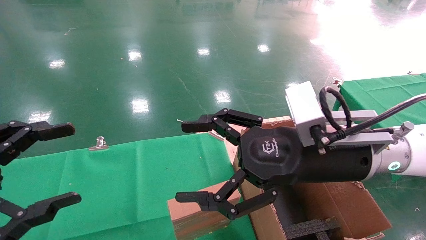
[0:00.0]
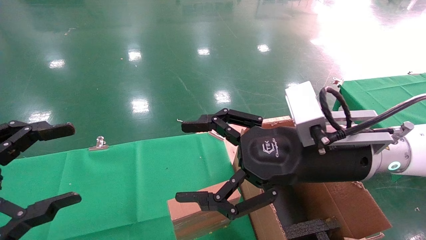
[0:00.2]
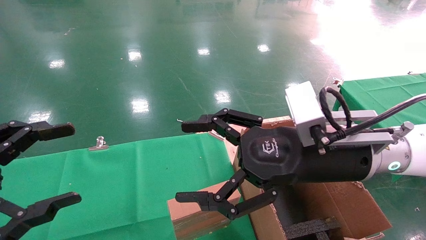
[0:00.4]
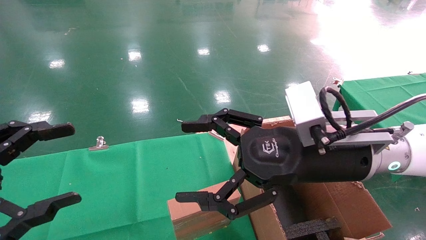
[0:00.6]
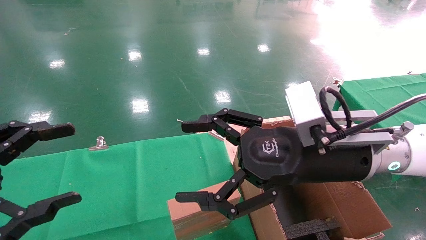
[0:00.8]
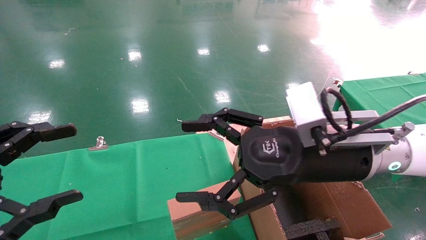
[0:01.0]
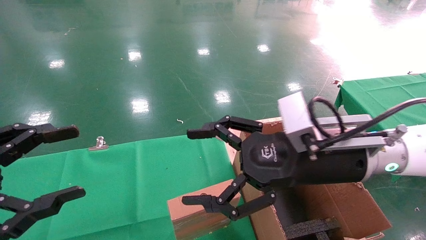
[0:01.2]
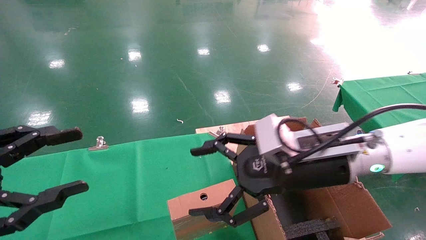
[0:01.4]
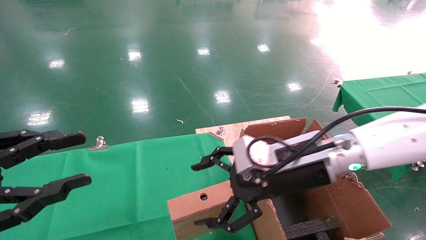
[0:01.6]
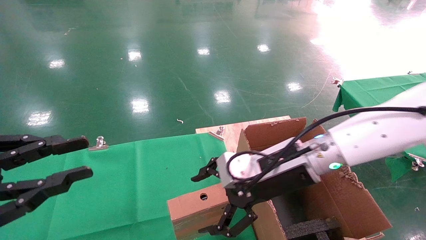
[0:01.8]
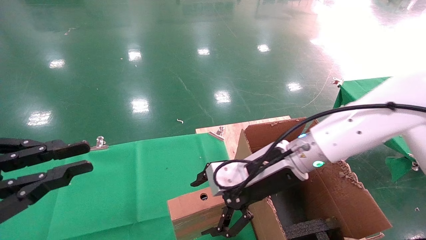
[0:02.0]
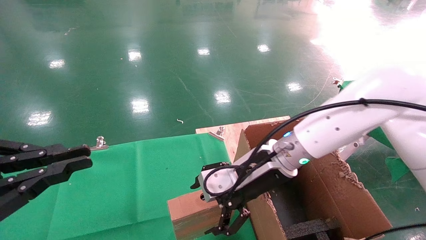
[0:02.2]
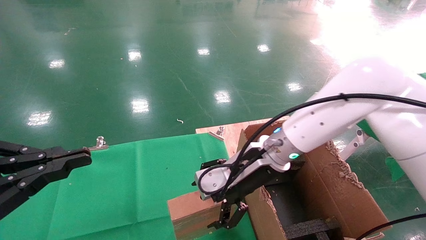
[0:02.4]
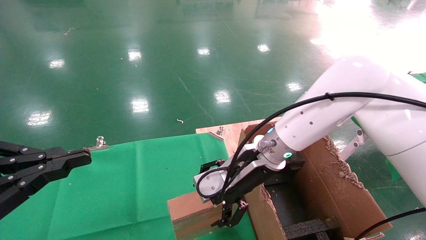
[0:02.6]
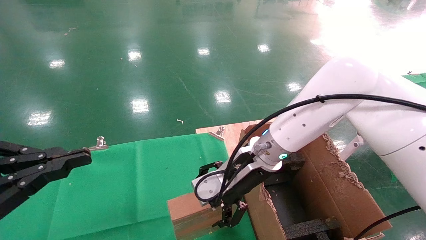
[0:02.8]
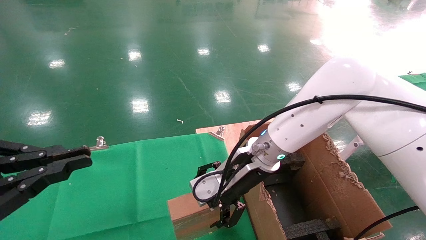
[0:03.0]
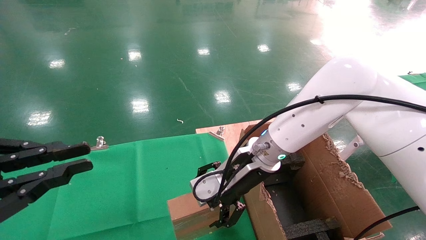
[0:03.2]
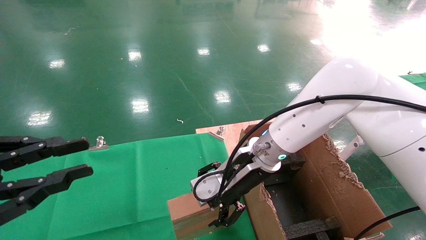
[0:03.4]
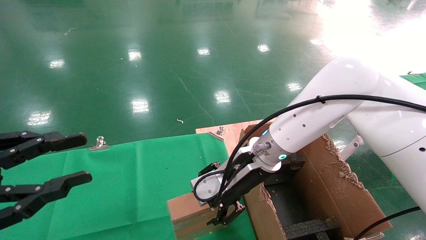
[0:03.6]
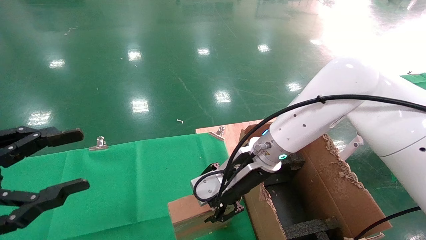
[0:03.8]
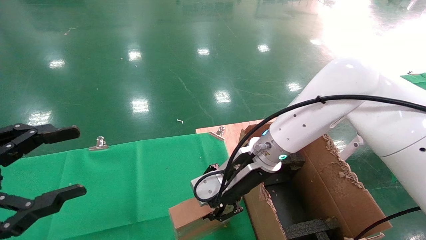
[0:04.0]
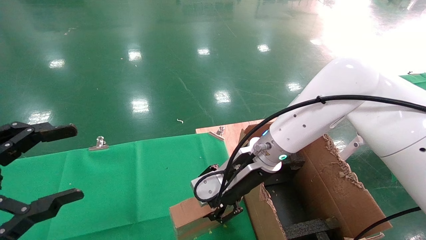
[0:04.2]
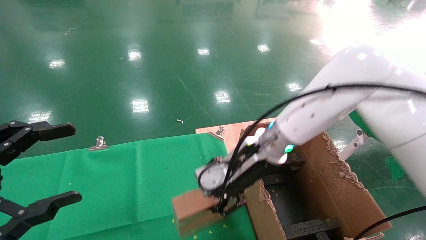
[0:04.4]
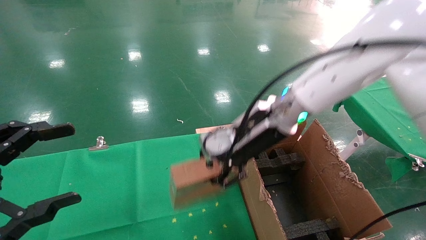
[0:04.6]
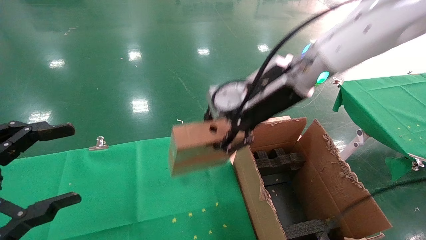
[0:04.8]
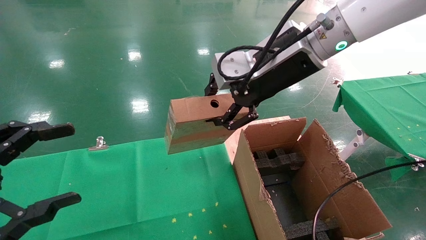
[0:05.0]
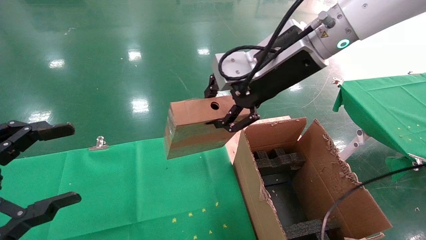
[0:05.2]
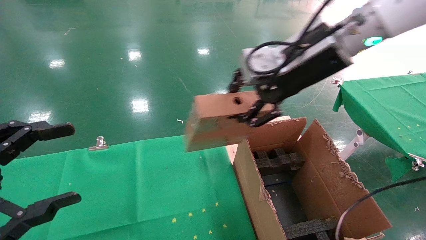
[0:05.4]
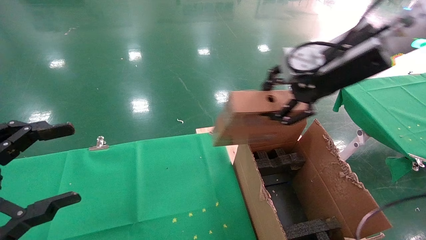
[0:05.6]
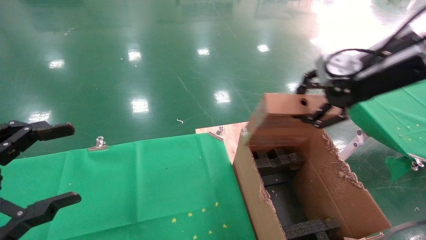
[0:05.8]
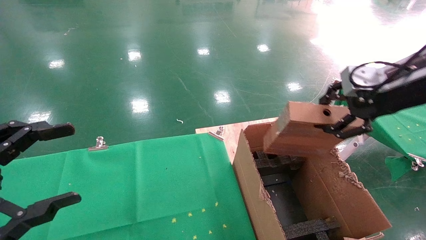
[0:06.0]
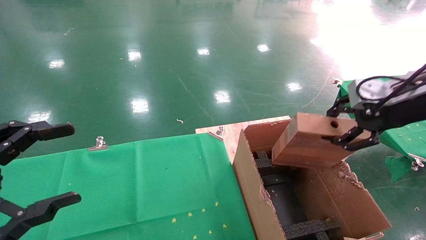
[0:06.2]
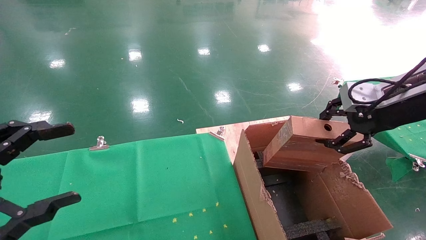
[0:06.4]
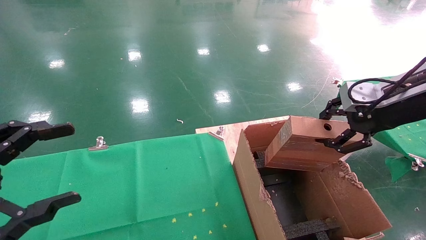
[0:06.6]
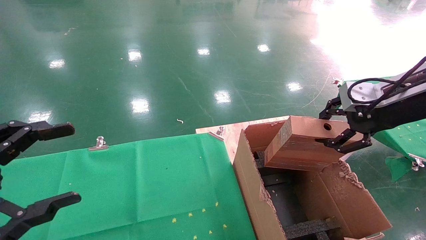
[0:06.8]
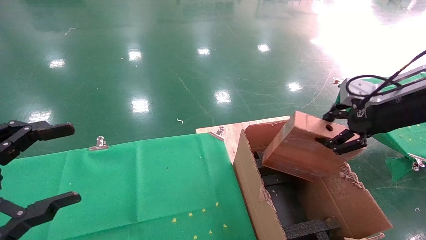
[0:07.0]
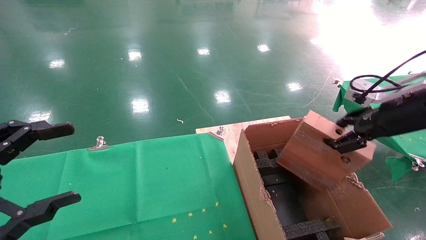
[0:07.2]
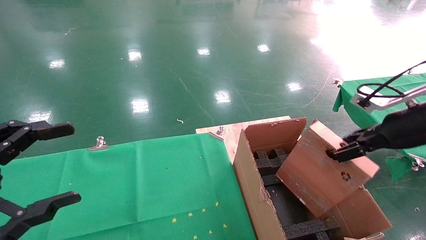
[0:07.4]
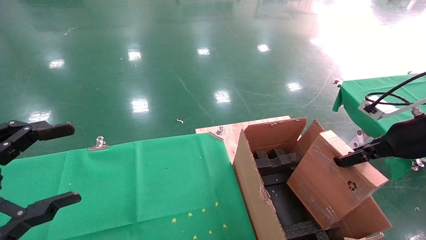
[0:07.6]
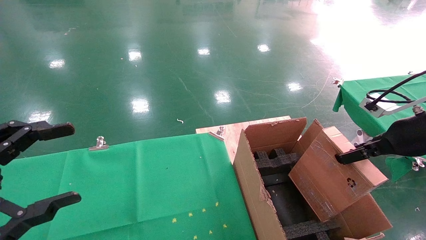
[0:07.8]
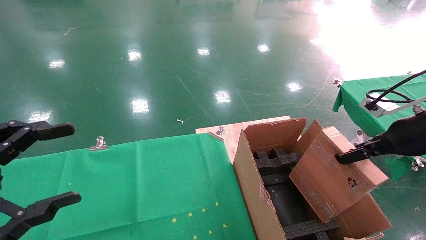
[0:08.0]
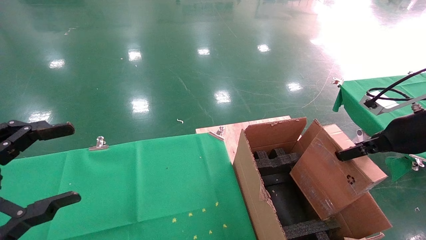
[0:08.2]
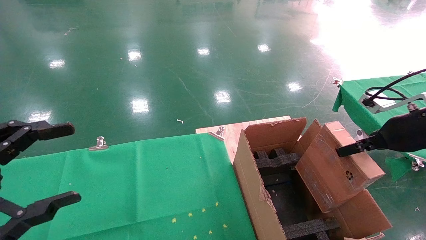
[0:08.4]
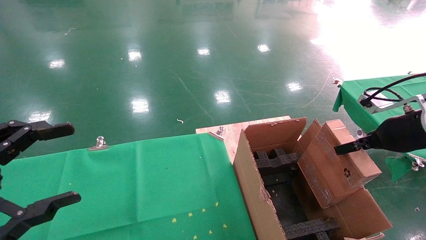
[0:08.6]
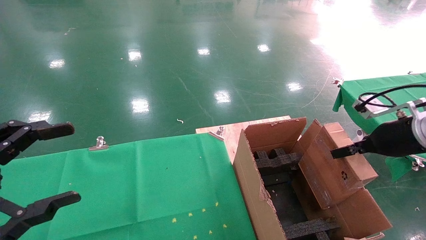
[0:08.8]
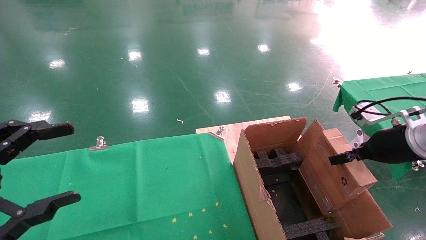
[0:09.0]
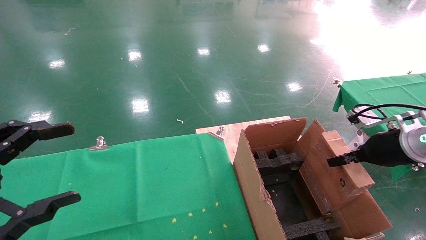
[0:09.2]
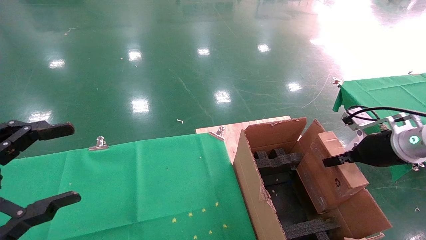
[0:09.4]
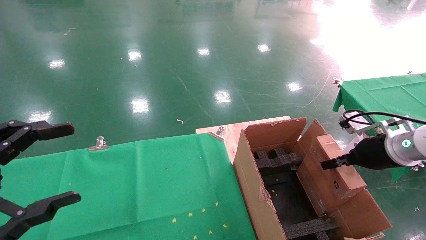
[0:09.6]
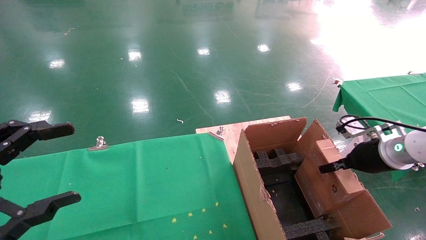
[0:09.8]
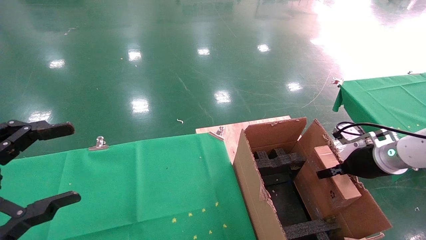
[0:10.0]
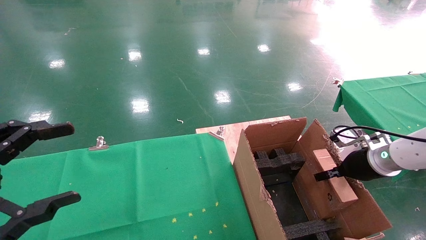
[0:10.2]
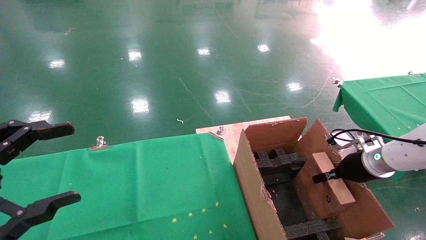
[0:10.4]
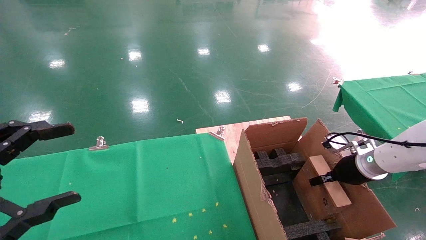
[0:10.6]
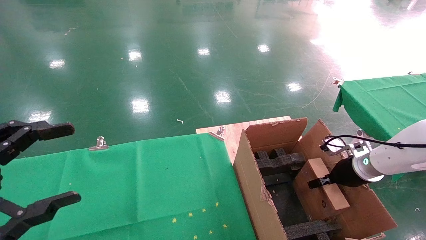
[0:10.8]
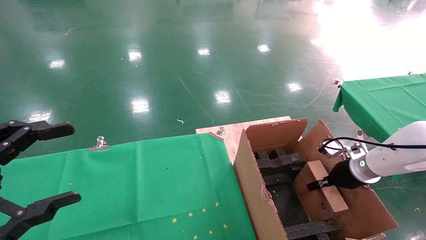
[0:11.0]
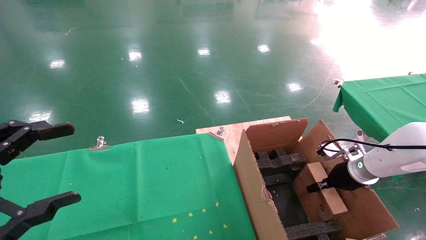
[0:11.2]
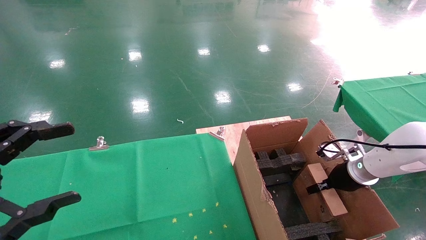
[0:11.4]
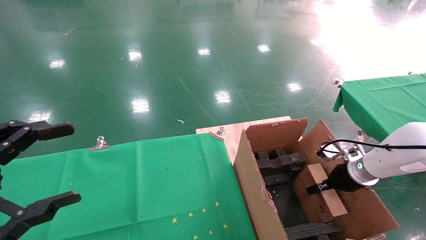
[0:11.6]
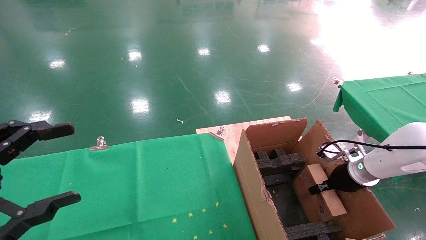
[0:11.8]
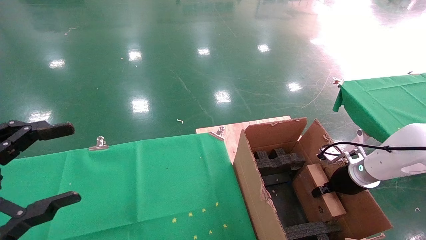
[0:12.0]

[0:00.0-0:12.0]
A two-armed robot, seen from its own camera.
Task of the whole recording: using a robotic arm to pick up a cardboard box and palace it the carton.
Step, 0:01.4 to 0:04.2: Pick up the mouse and the power cord paper box.
0:00.0 to 0:01.6: The left gripper closes up. The right gripper shifts by approximately 5 cm.
0:01.6 to 0:03.0: The left gripper closes. The right gripper goes roughly 10 cm forward and to the left.
0:03.0 to 0:04.4: The left gripper opens its fingers, while the right gripper closes up.
0:04.4 to 0:06.0: The right gripper heads to the right and upward, covering about 25 cm.
0:06.0 to 0:07.6: The right gripper is displaced downward and to the right by roughly 10 cm.
0:07.6 to 0:09.0: The right gripper shifts by some 5 cm.
0:09.0 to 0:10.4: The right gripper heads downward and forward, covering about 10 cm.
0:10.4 to 0:12.0: The grippers make only small movements.

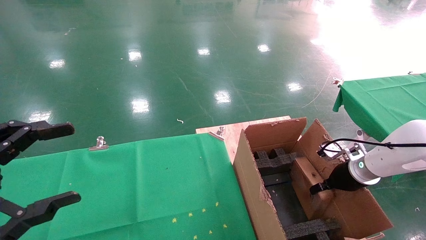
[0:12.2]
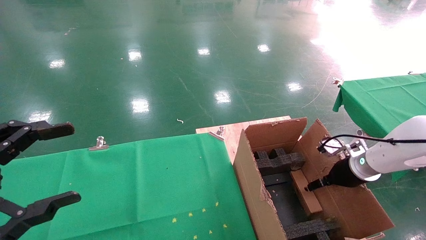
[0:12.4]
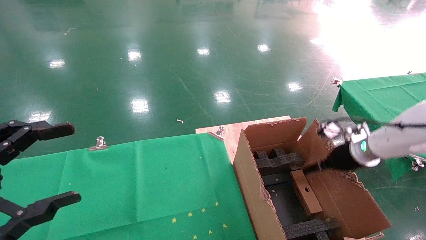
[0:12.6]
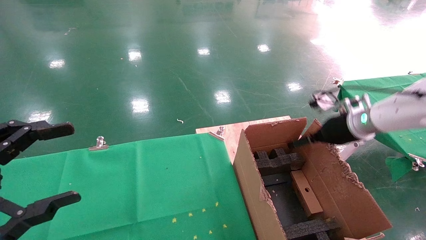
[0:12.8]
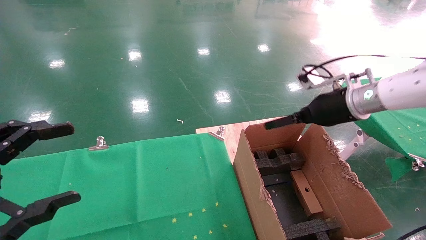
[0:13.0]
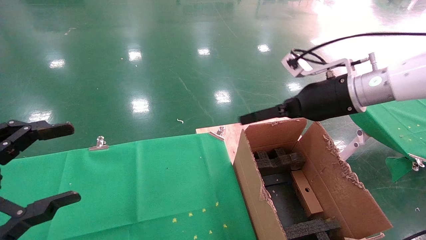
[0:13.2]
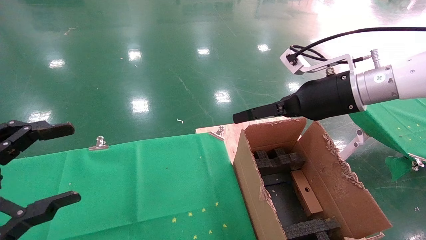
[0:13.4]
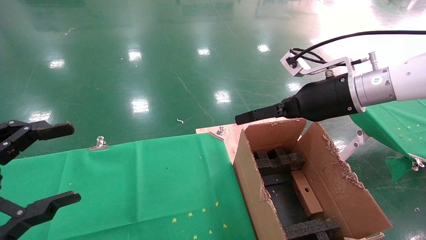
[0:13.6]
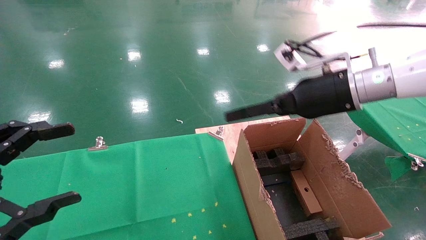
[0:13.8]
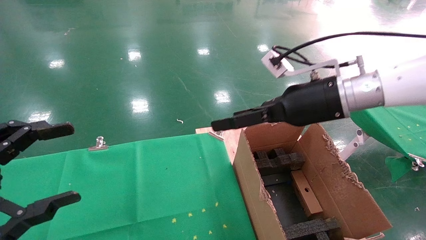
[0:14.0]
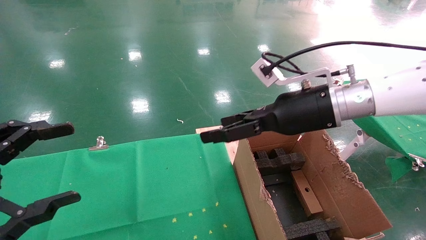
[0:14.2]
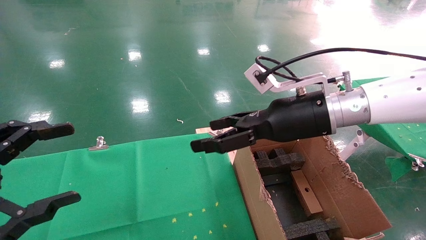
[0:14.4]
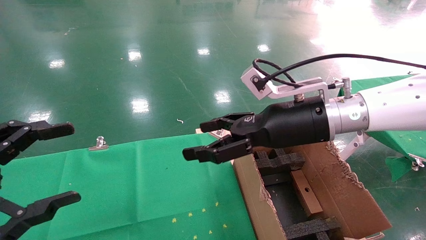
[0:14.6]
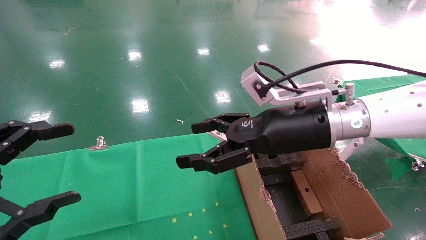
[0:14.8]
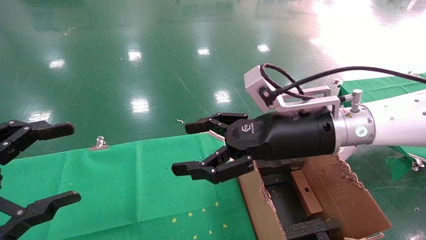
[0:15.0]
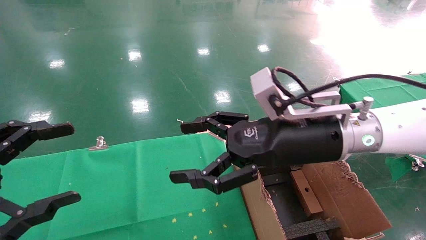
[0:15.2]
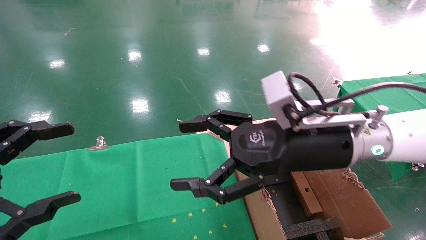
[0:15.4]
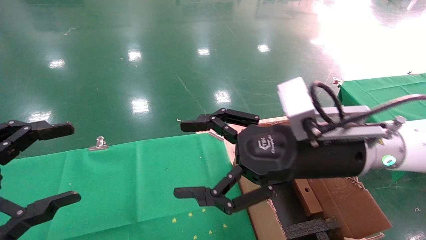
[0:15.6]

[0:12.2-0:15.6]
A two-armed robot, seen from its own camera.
Task of the whole recording: using a robotic arm to pick up a cardboard box and palace it the carton.
0:12.2 to 0:13.8: The right gripper shifts about 25 cm upward and to the left, and opens up.
0:13.8 to 0:15.6: The right gripper is displaced backward and to the left by about 10 cm.
